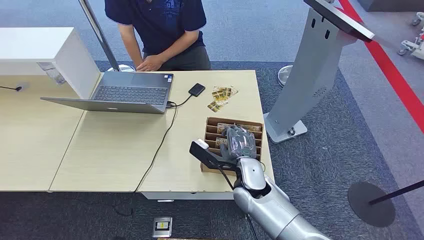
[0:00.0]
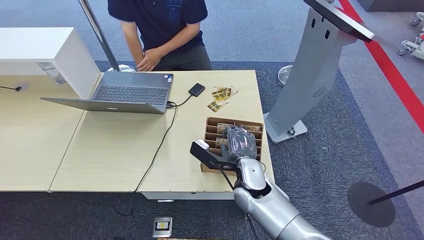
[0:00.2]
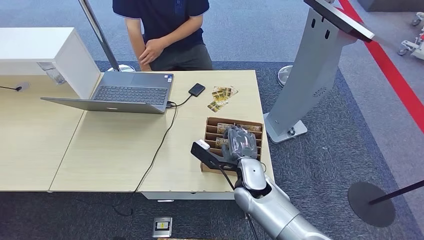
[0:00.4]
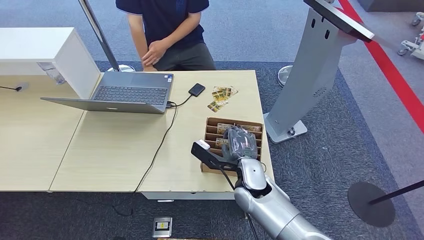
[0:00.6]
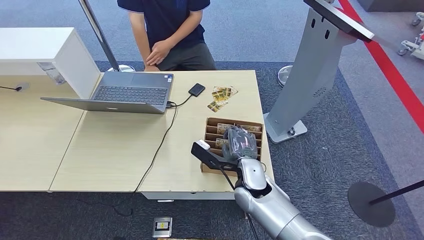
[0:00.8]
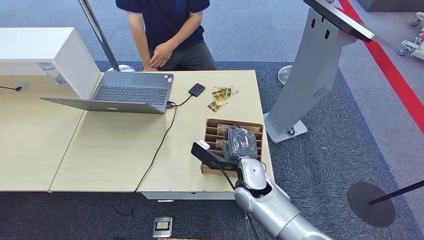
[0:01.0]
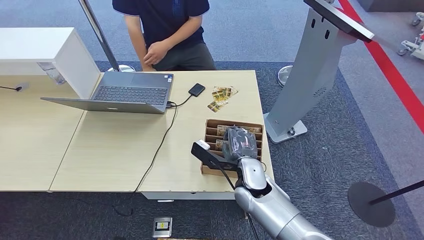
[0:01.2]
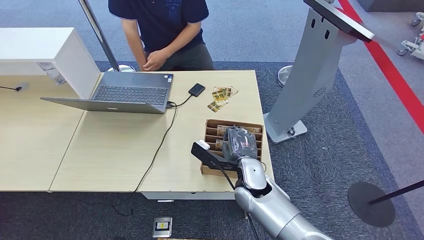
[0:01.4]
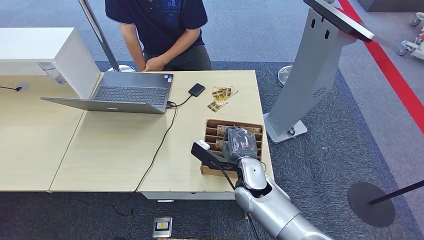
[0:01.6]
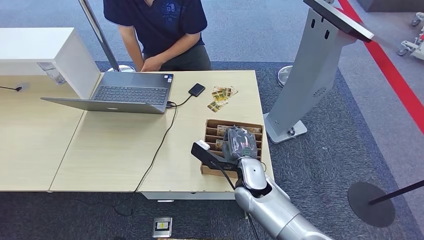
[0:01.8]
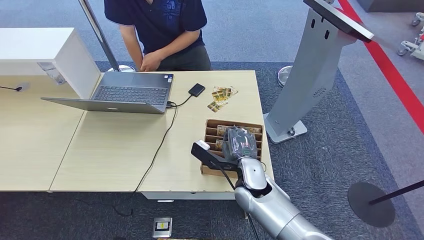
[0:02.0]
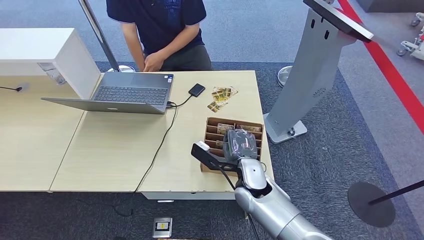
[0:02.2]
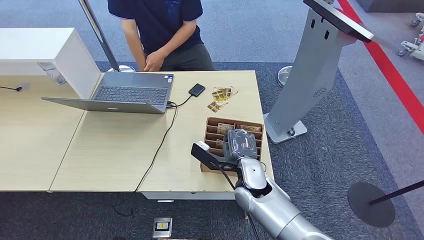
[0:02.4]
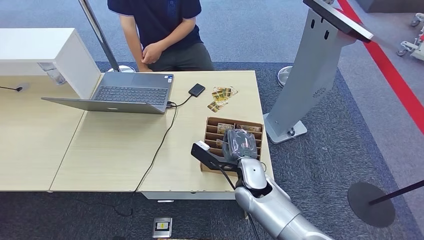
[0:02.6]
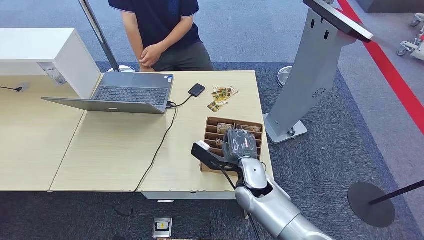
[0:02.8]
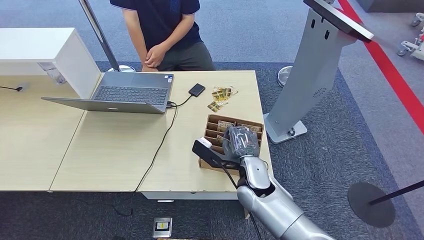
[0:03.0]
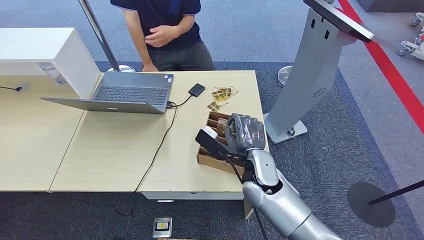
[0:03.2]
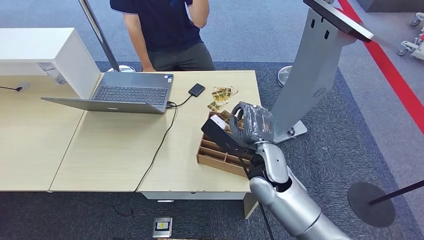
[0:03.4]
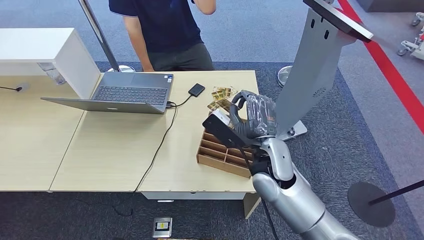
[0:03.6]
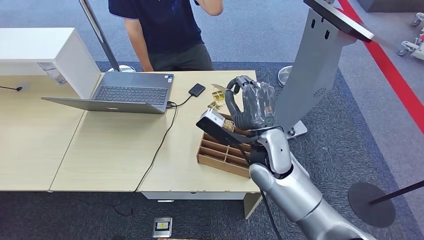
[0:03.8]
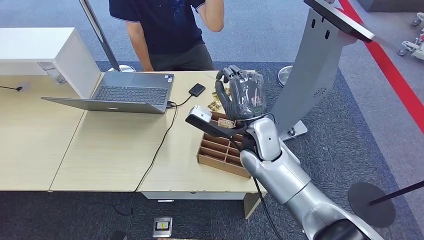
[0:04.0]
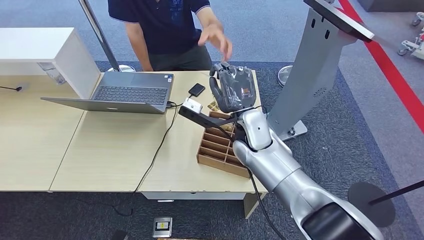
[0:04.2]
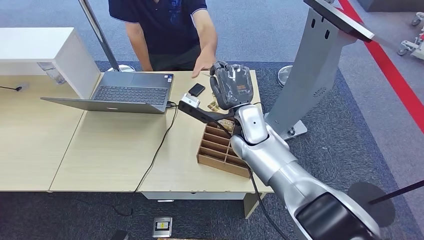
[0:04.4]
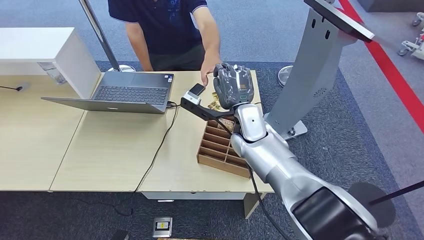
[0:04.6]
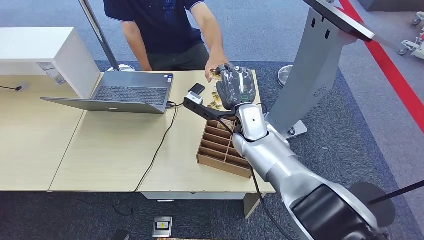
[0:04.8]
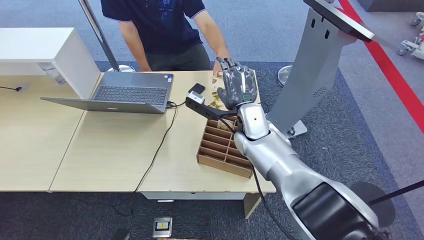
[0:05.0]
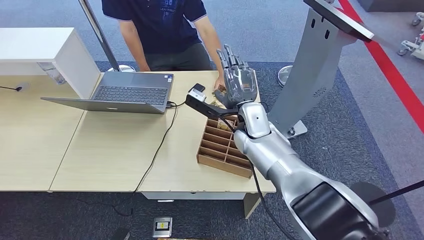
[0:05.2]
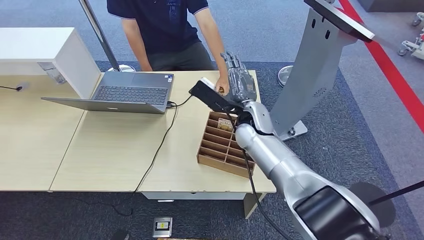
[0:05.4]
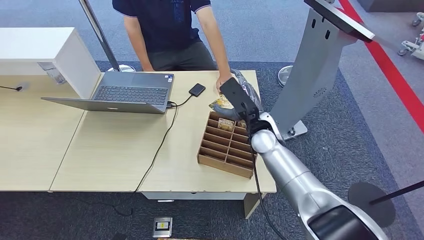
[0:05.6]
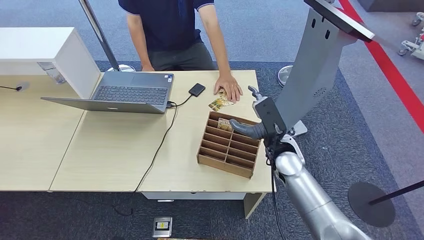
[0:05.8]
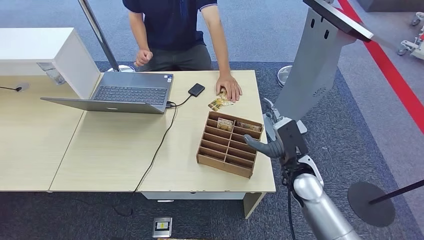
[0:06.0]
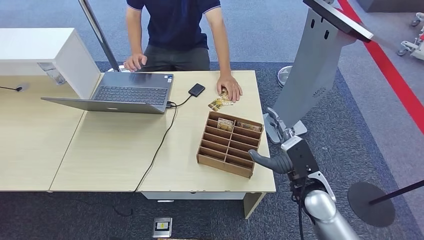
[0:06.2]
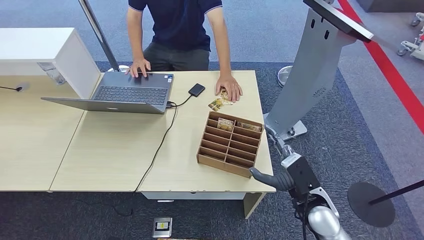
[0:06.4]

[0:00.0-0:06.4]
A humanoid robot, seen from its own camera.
Step, 0:00.0 to 0:03.8: Pick up the room card from the card holder.
Step, 0:04.0 to 0:06.4: Hand the room card to the target.
0:01.6 to 0:03.2: The hands move only a little.
0:03.2 to 0:04.8: The right hand travels forward and upward by approximately 10 cm.
0:04.8 to 0:06.4: The right hand heads backward, to the right and downward, covering about 25 cm.
